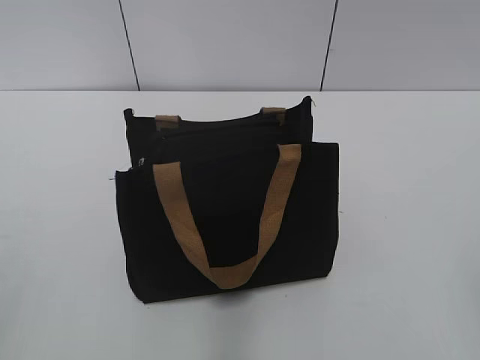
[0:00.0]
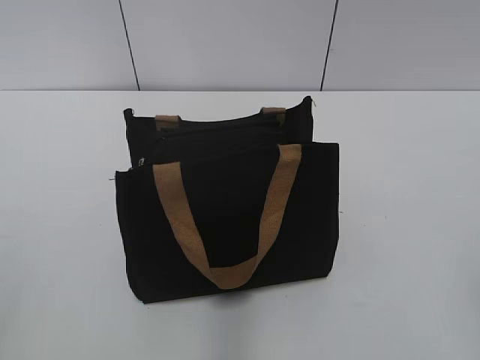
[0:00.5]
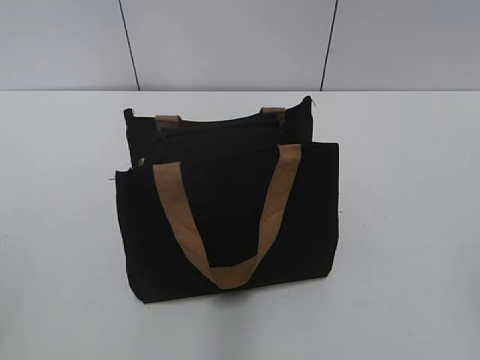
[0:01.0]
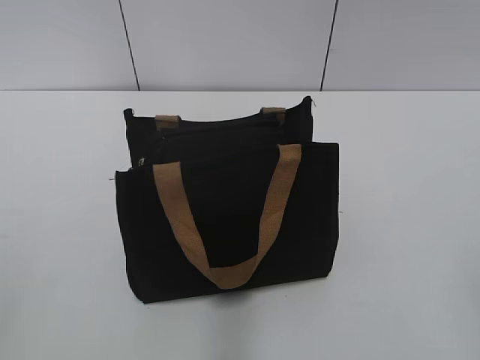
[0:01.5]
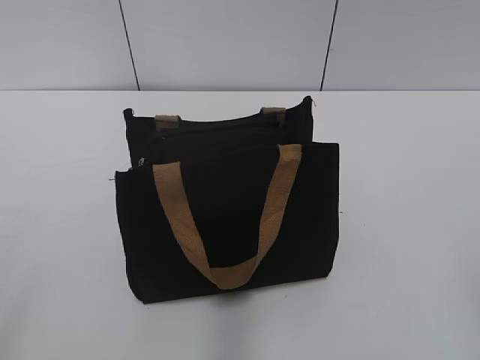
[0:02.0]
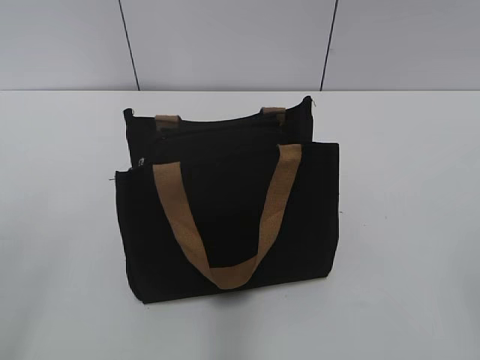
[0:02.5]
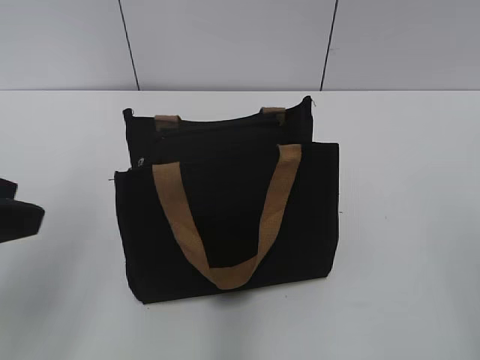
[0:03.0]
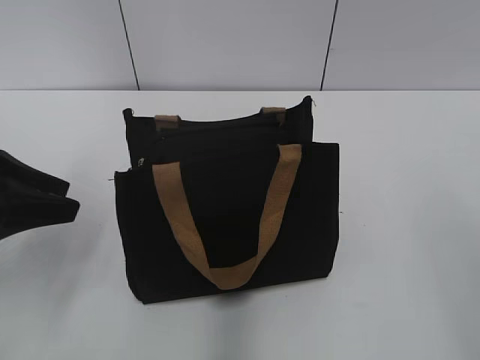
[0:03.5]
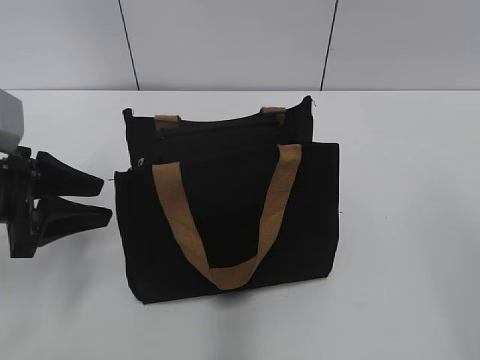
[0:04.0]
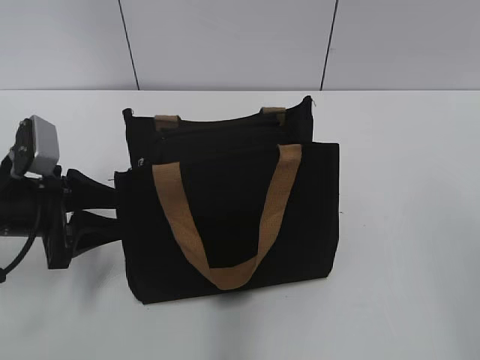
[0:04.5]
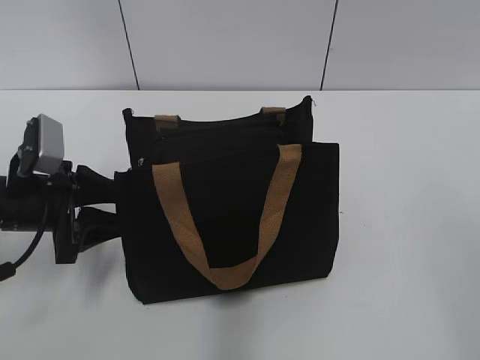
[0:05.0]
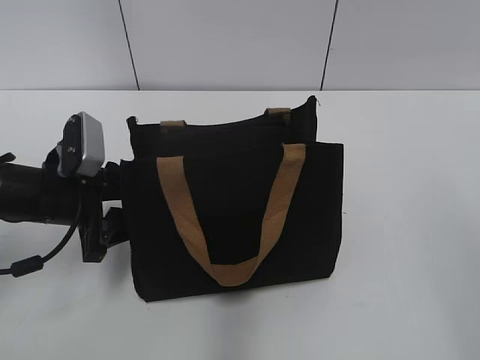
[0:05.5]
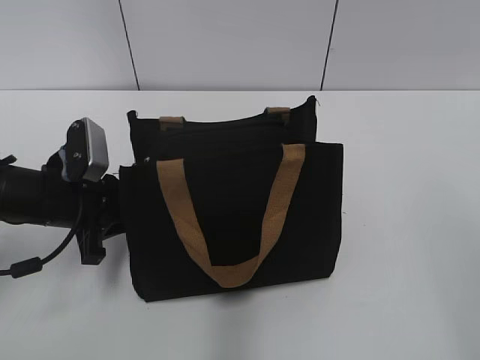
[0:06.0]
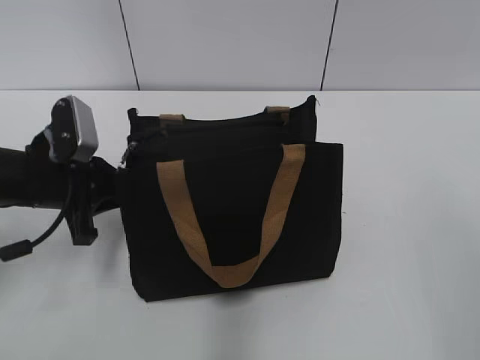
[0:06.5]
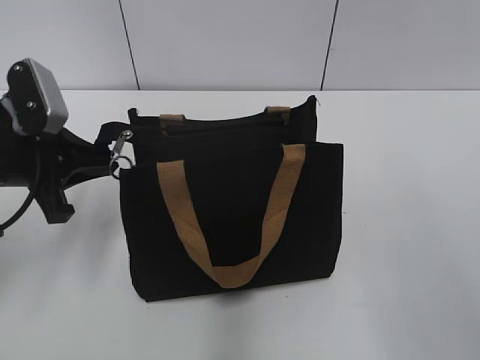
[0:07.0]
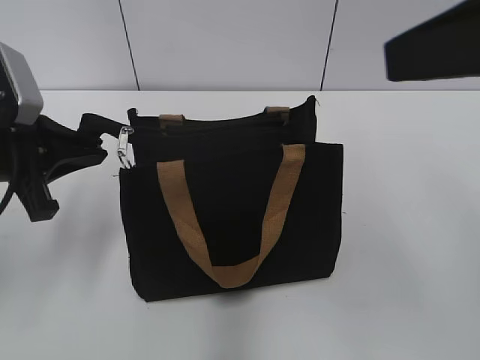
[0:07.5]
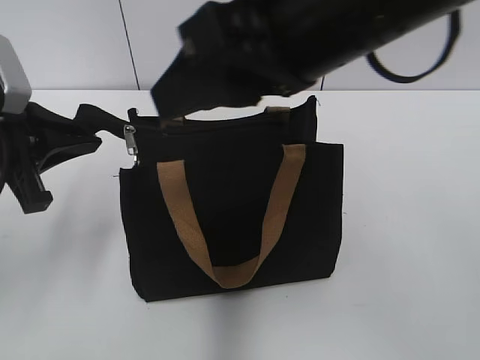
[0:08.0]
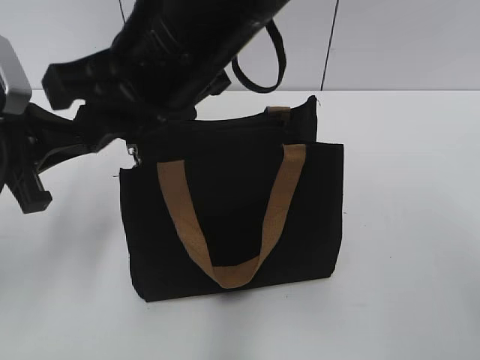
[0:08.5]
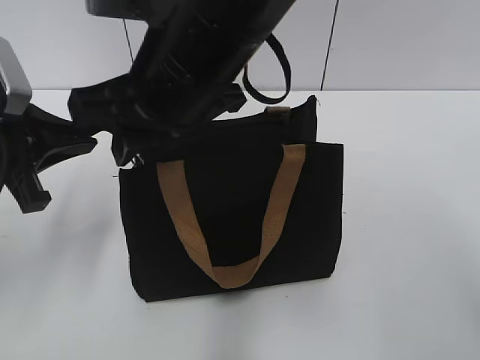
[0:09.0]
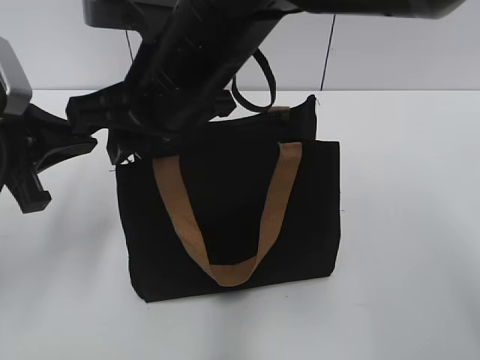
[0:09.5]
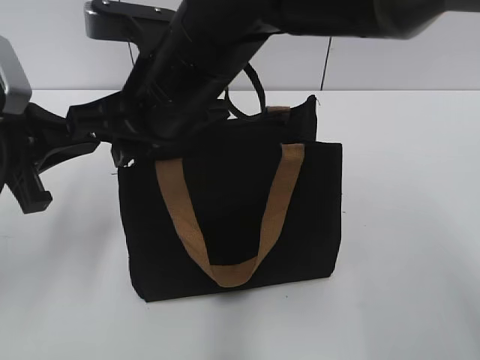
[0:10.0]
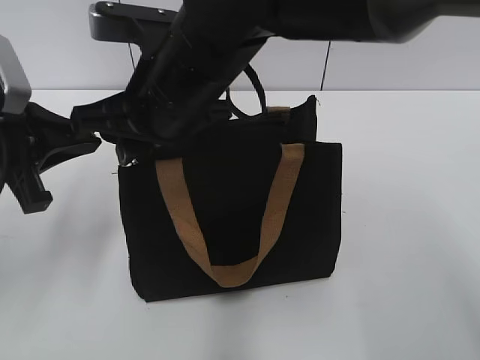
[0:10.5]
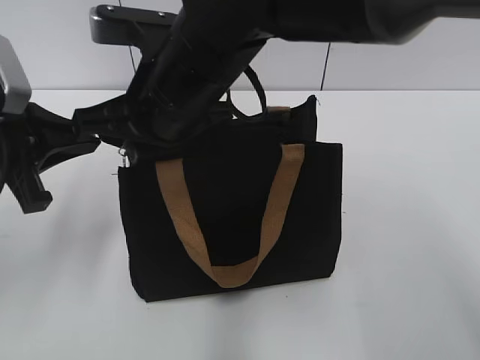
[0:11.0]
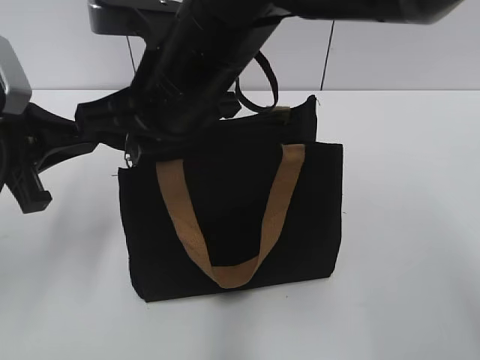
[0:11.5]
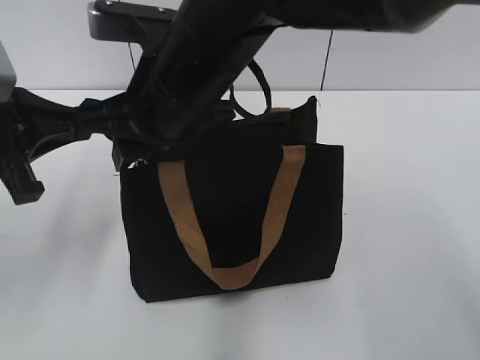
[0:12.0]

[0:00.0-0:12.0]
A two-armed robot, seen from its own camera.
2.0 to 4.0 s: The left gripper goes some 30 cm forward and downward.
4.0 to 6.0 s: The left gripper heads downward, covering some 5 cm, and closes its fingers.
6.0 to 8.0 s: The left gripper is displaced upward by approximately 10 cm, while the right gripper moves to the left and forward, approximately 25 cm.
8.0 to 10.0 s: The right gripper moves to the left, downward and forward, some 15 cm.
10.0 to 12.0 s: The right gripper closes and opens again.

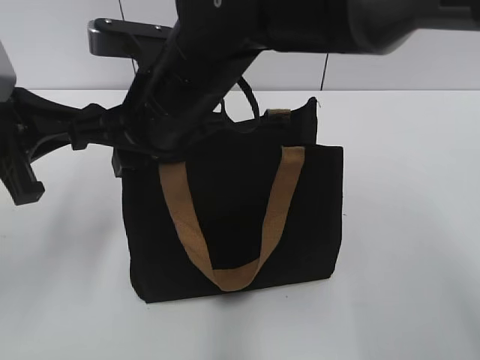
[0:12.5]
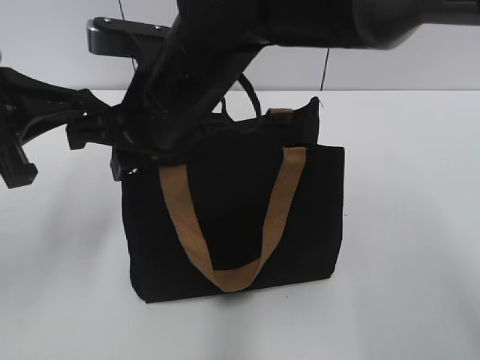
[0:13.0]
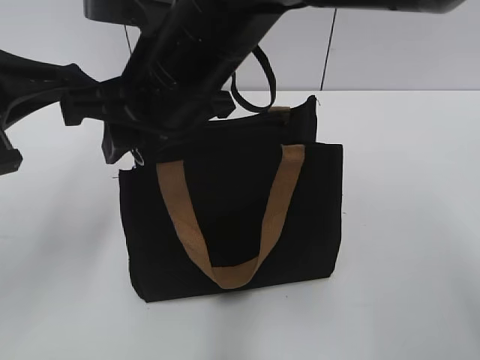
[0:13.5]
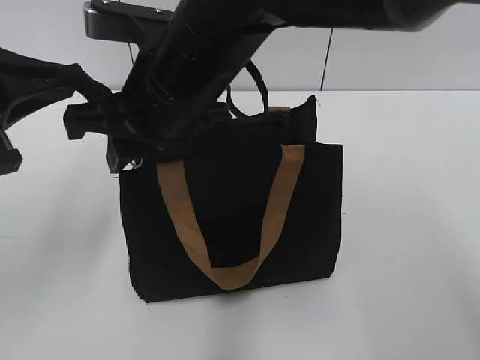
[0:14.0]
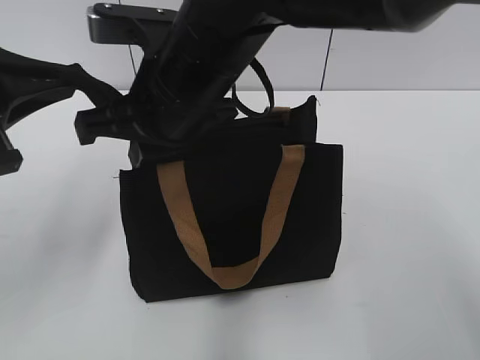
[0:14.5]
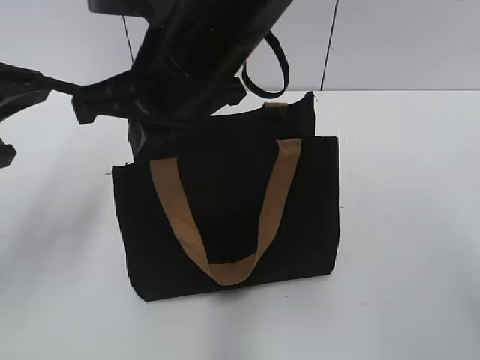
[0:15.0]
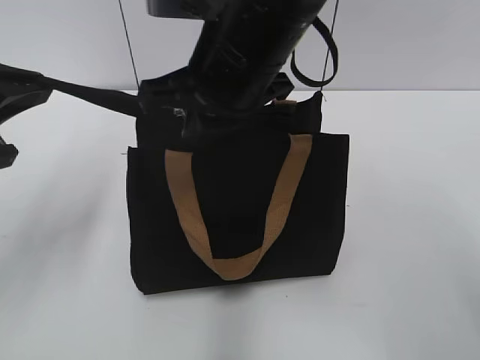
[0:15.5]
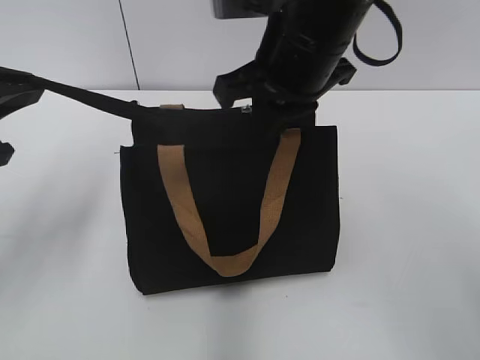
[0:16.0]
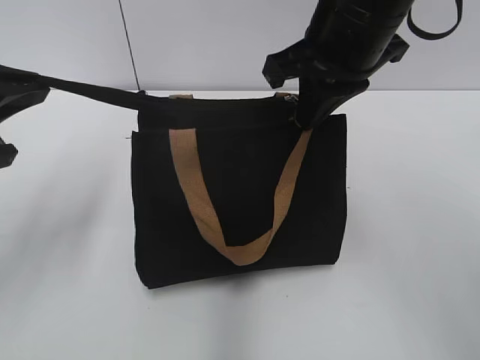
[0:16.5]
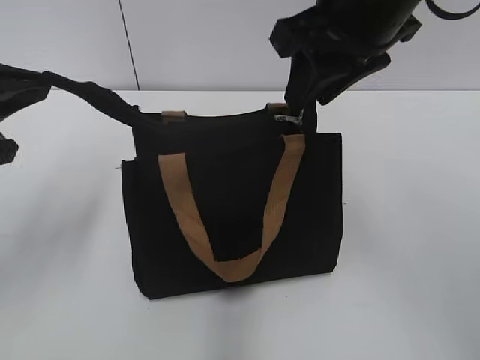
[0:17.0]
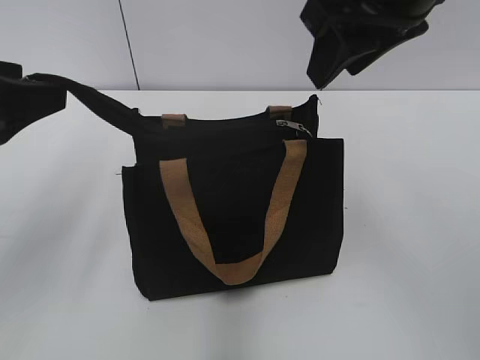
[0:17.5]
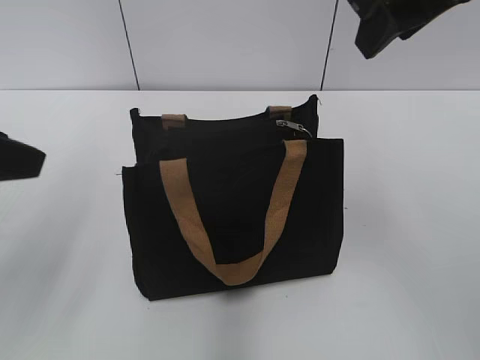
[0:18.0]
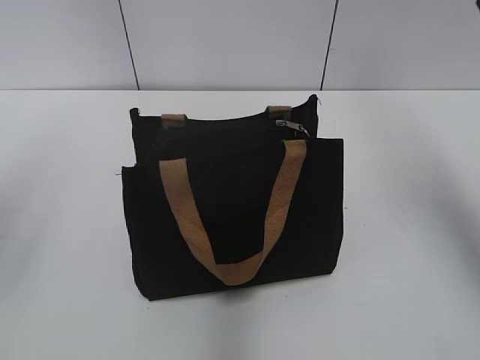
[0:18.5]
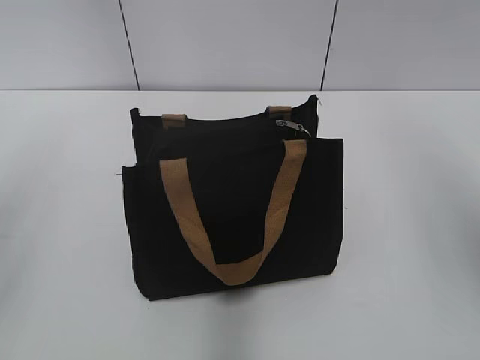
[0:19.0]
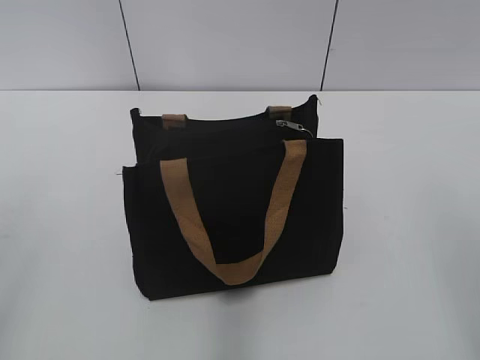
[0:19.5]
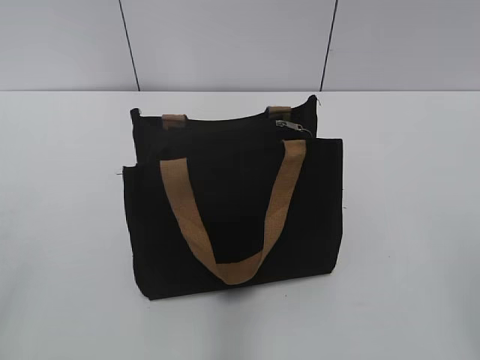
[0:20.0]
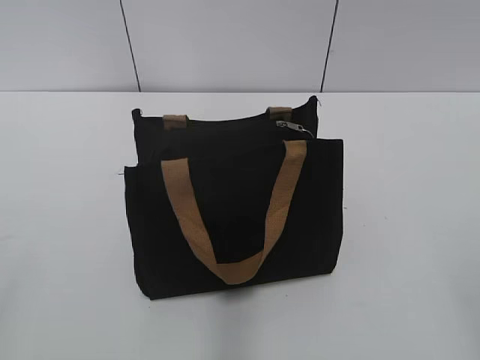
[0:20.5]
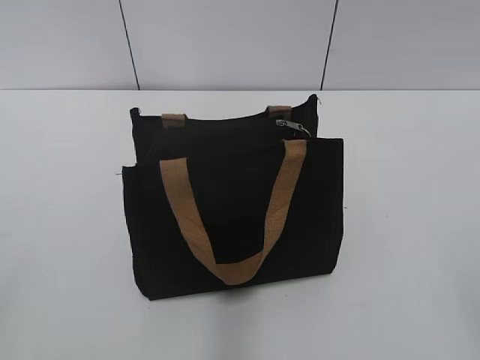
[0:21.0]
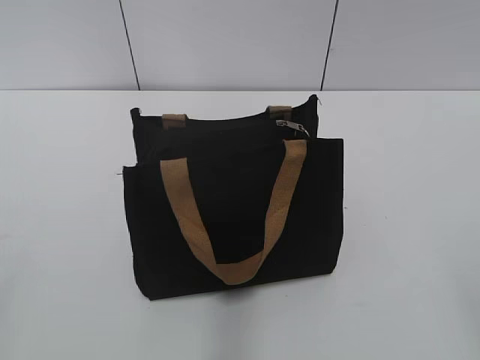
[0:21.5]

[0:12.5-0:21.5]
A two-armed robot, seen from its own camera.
Step, 12.5 to 16.5 s: Zip up the bag with your right hand.
12.5 to 14.5 s: The right gripper closes up.
14.5 to 17.0 s: The right gripper travels to the right and upward by roughly 15 cm, and opens up.
17.0 to 19.5 s: The right gripper moves backward and to the right, approximately 30 cm. The left gripper is displaced backward by roughly 15 cm, and opens up.

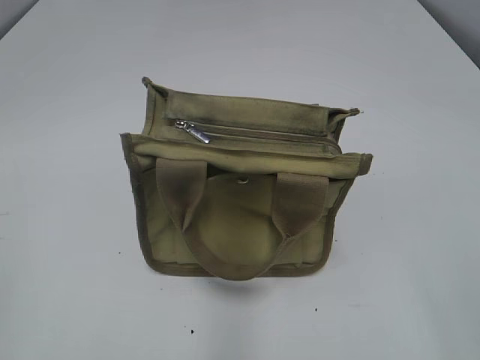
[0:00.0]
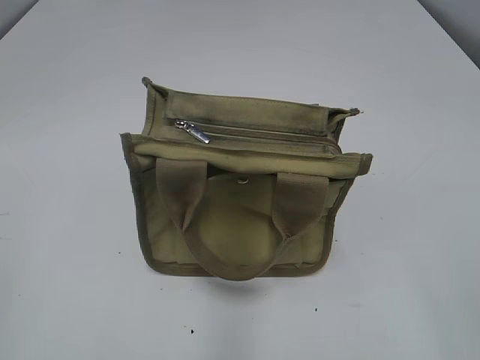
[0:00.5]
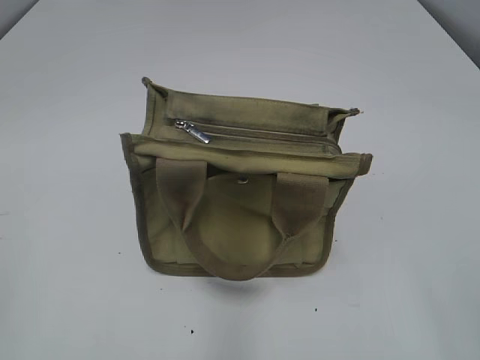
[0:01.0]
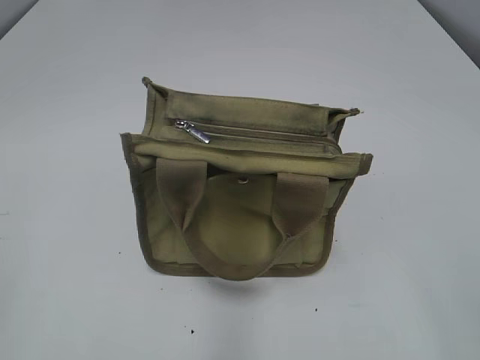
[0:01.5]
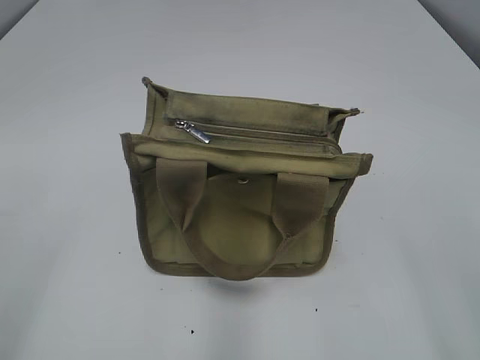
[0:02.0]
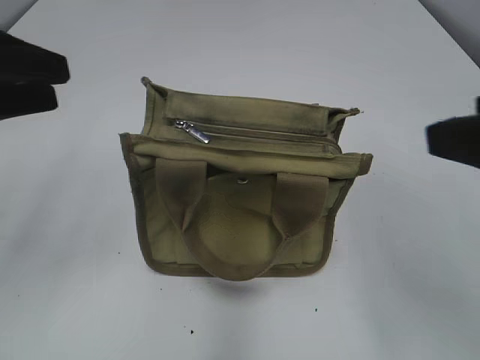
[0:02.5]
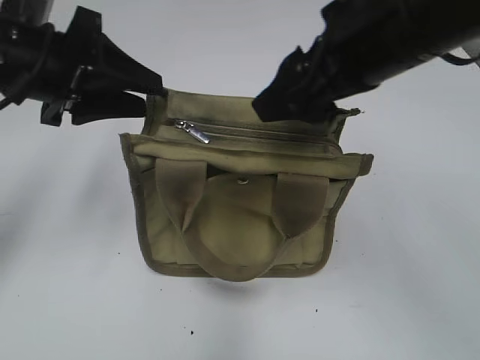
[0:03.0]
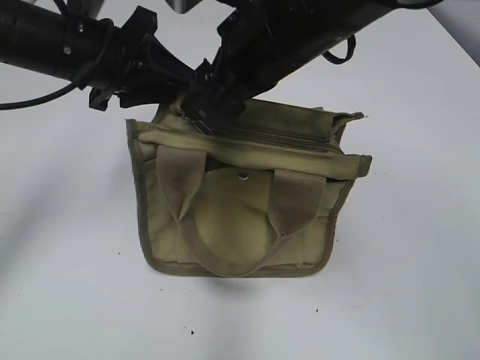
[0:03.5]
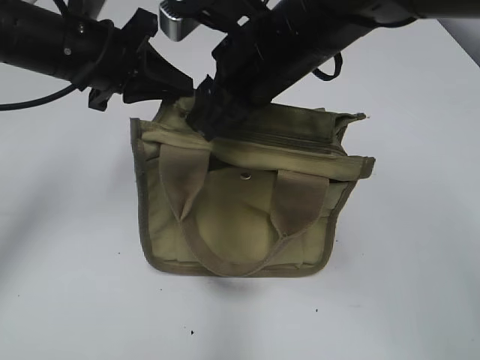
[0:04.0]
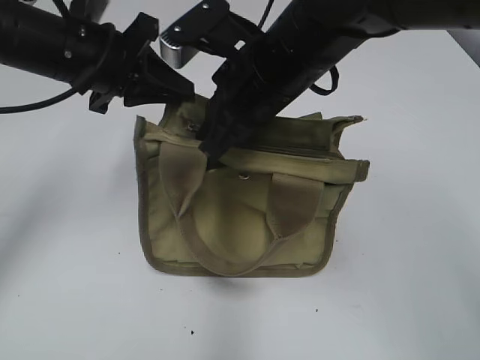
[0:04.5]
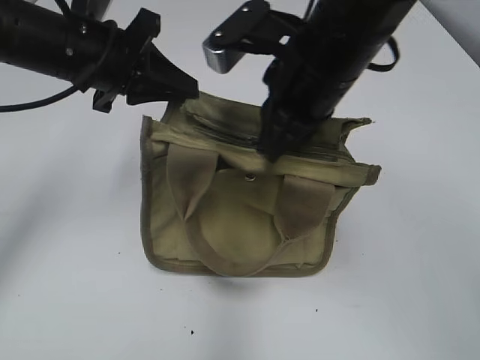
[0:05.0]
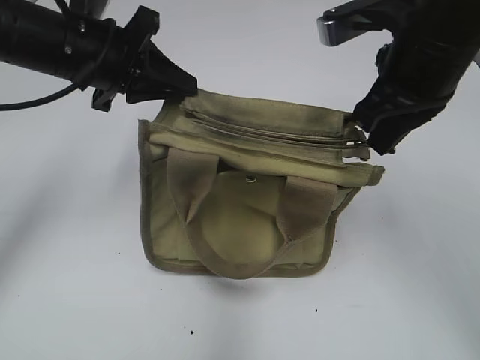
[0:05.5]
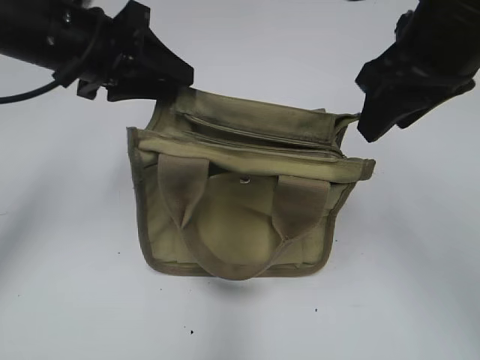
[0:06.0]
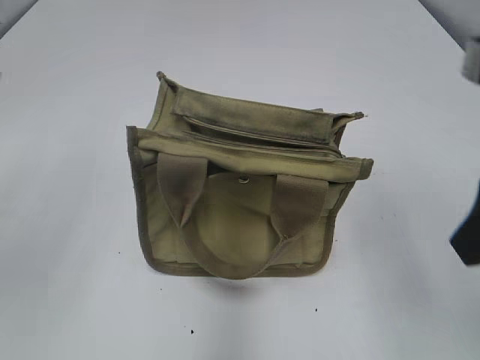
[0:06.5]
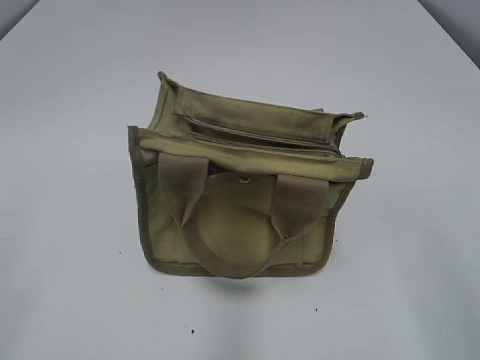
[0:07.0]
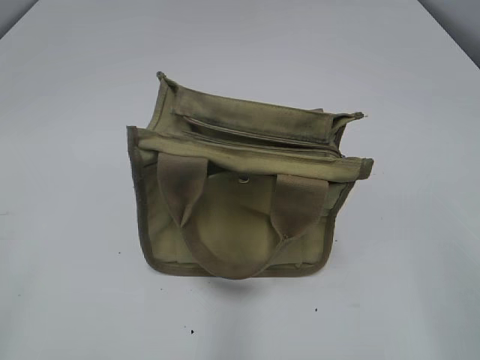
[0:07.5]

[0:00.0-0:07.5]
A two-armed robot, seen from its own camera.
Step, 0.0 to 5.5 s: Pull open the zipper with your right hand.
2.0 to 4.0 s: The left gripper shifts some 35 cm forward and to the right, and closes up, while the right gripper goes roughly 40 cm forward and to the left, and closes up.
4.0 to 5.5 s: The right gripper is displaced to the right by some 10 cm, and closes its fingers.
5.5 to 7.5 s: The left gripper goes approximately 40 cm backward and to the left, and opens, while the right gripper moves backward and to the right, some 30 cm, and opens up.
